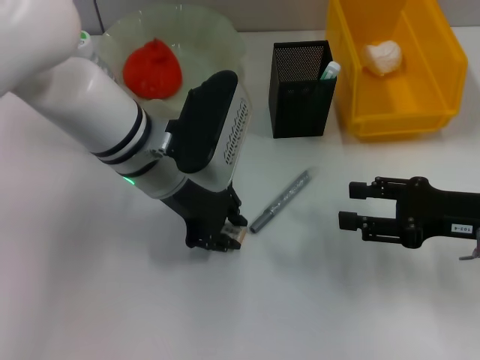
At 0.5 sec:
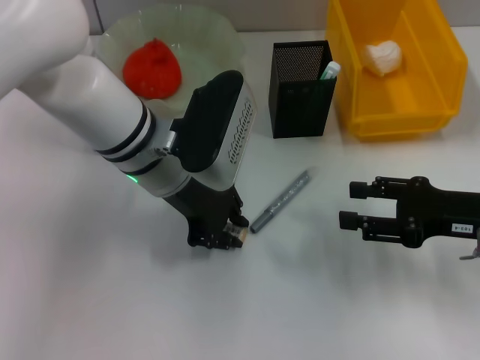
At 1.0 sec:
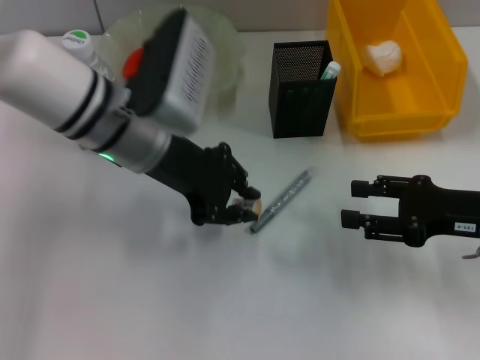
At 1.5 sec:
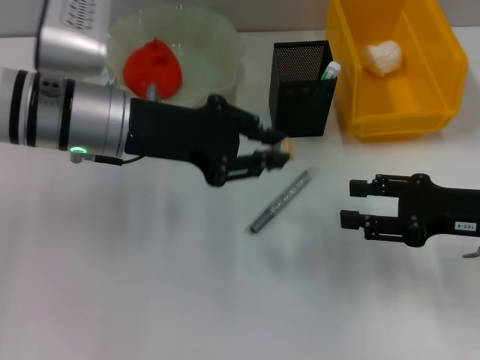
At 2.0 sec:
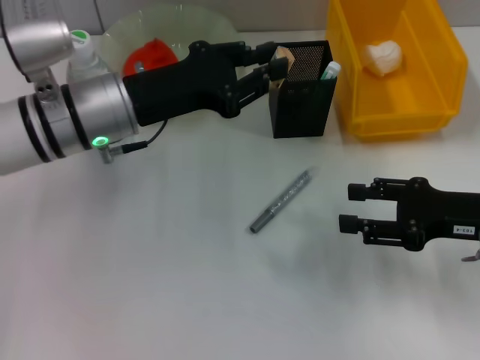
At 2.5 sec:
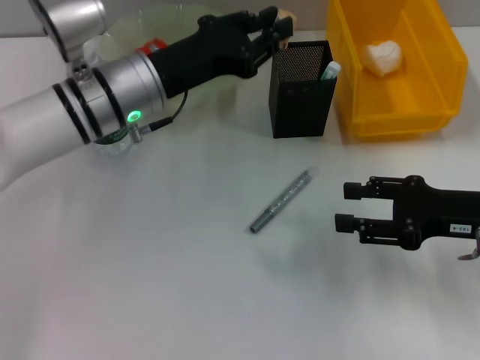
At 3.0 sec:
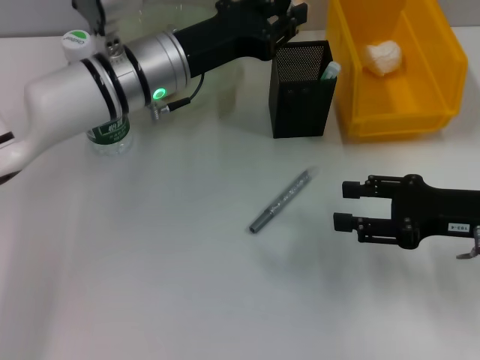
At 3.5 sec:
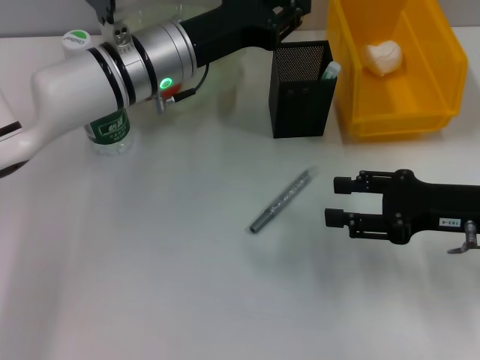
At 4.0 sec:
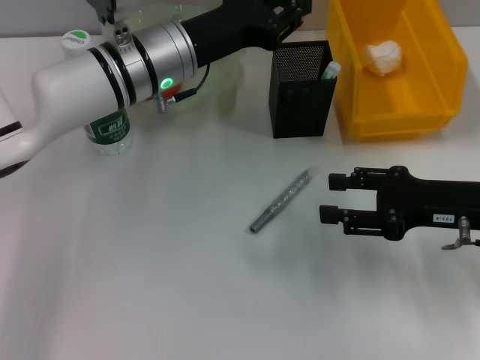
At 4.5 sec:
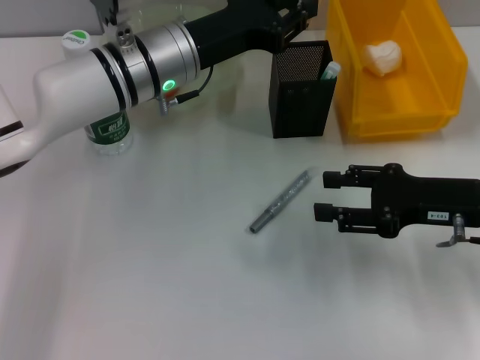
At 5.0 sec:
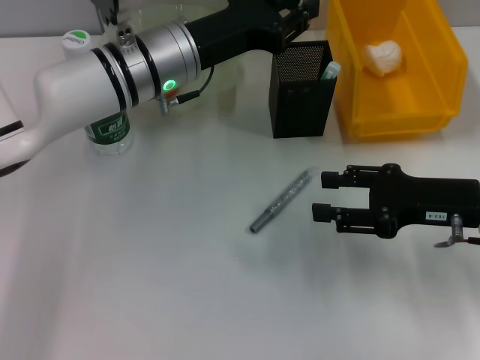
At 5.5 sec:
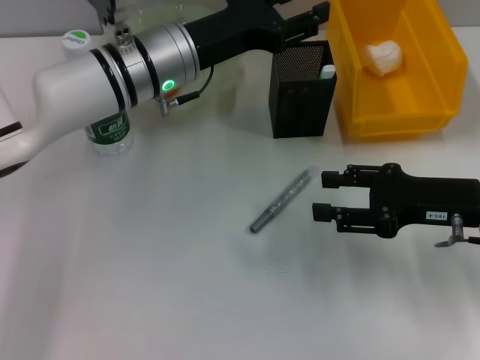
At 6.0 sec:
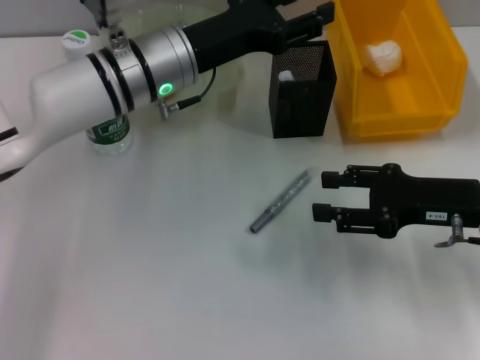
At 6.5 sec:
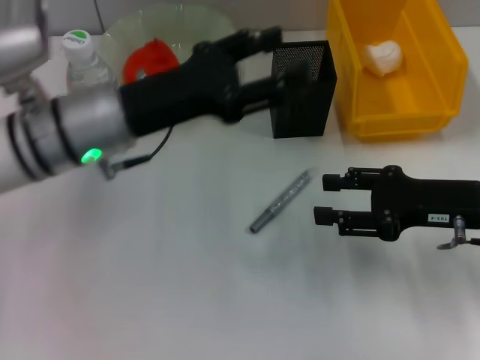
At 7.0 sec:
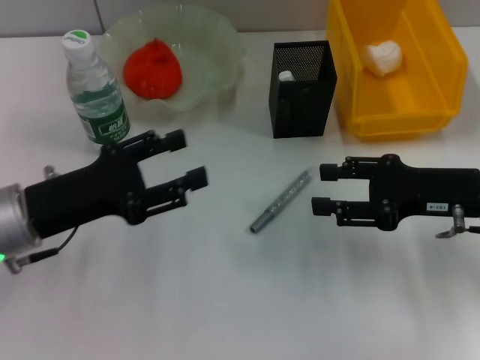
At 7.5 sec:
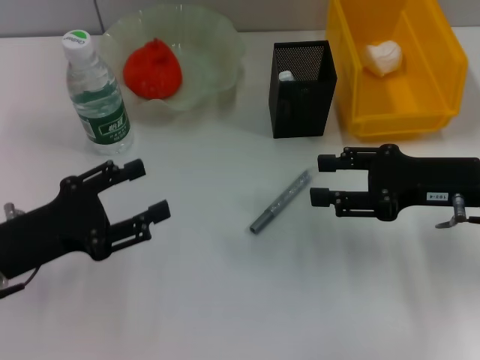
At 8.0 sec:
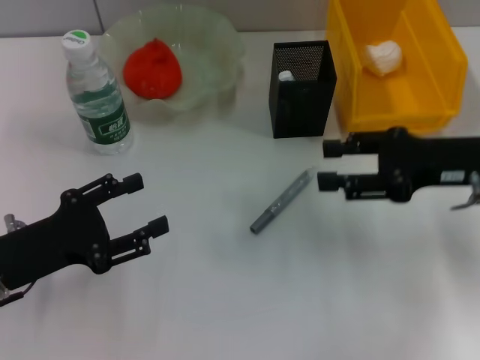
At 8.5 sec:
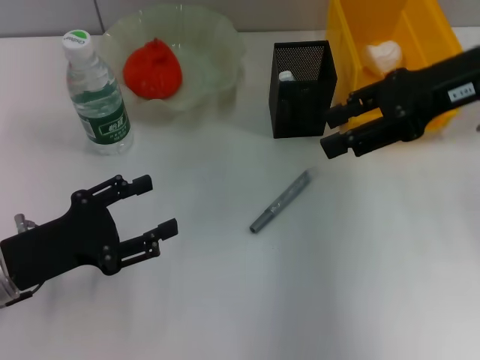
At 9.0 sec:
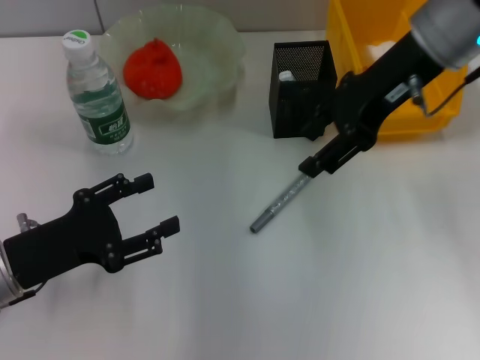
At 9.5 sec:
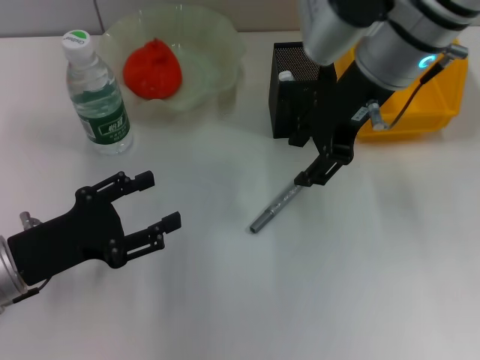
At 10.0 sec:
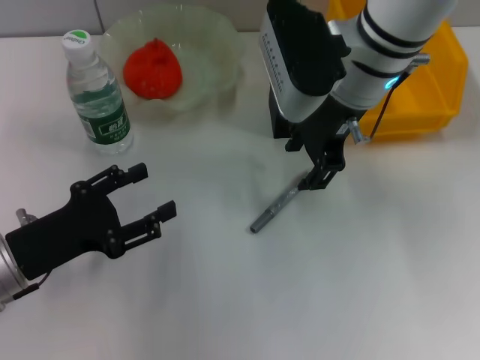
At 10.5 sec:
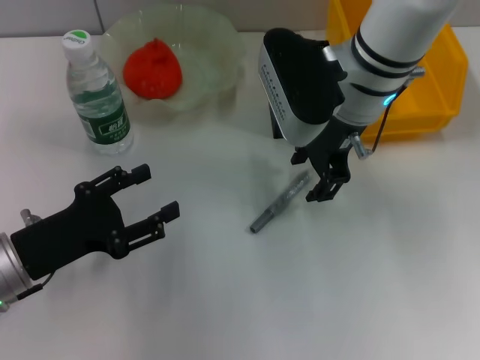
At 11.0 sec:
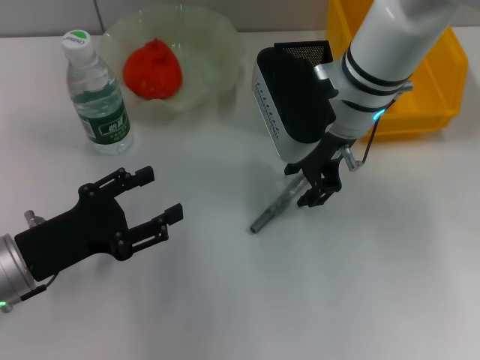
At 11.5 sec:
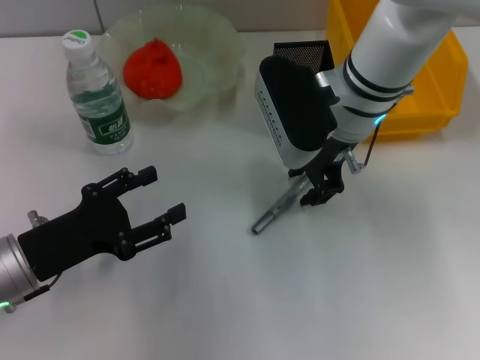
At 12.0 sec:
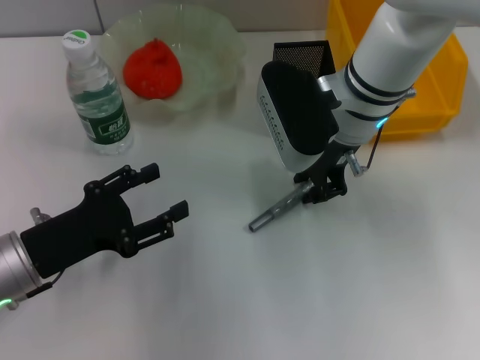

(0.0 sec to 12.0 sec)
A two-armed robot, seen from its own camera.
Step, 0.5 sec - 5.0 sec: Place the eraser into the pen holder with the left hand.
0.0 sec - 2.0 sec: The left gripper heads to the left, covering roughly 5 cm.
2.0 sec - 4.0 sec: The left gripper shifts roughly 5 cm forward and to the right.
4.0 sec - 6.0 sec: The left gripper opens.
6.0 sec - 8.0 sec: The right gripper ends up some 5 cm from where it was, while the left gripper is displaced backward, to the left and downward by approximately 25 cm.
8.0 sec - 10.0 sec: The right gripper shifts some 20 cm to the left and forward.
10.0 sec - 12.0 sec: The right gripper closes up.

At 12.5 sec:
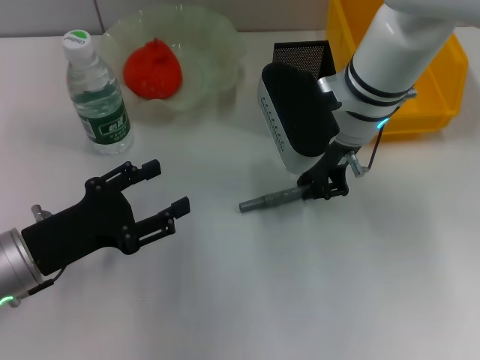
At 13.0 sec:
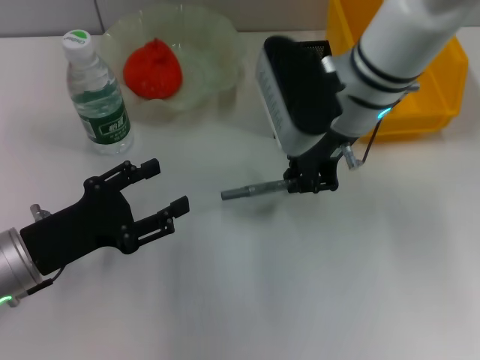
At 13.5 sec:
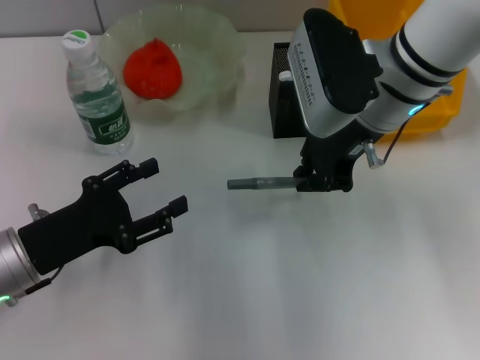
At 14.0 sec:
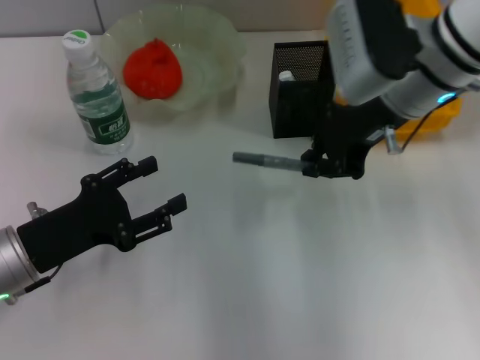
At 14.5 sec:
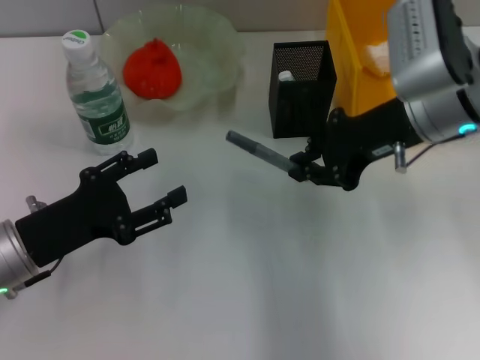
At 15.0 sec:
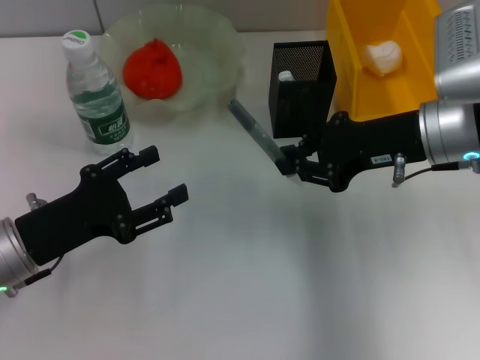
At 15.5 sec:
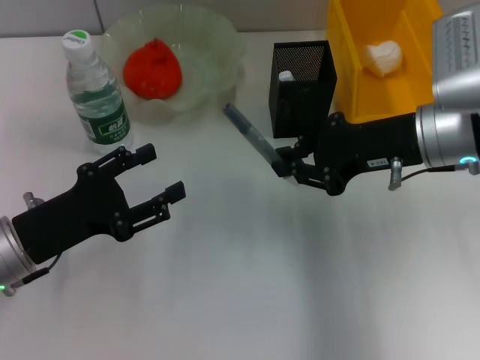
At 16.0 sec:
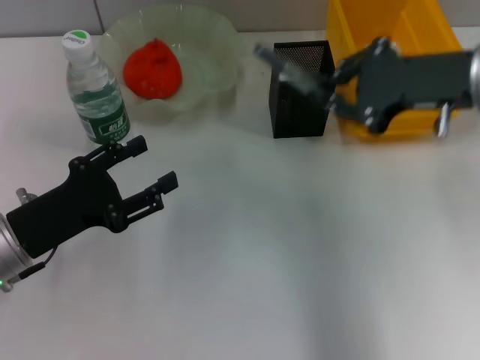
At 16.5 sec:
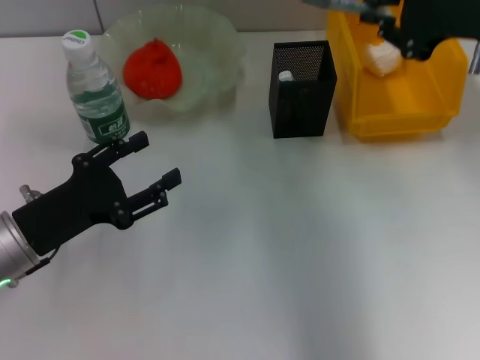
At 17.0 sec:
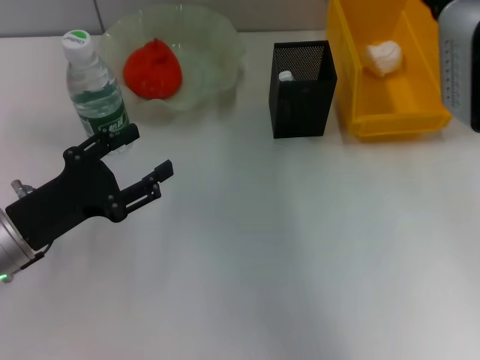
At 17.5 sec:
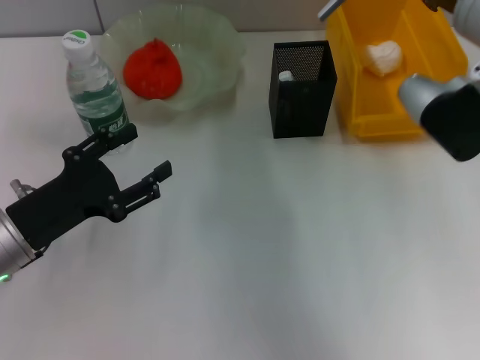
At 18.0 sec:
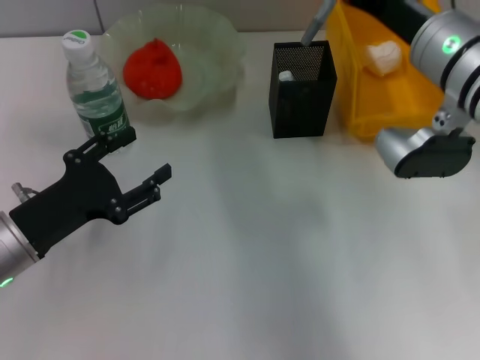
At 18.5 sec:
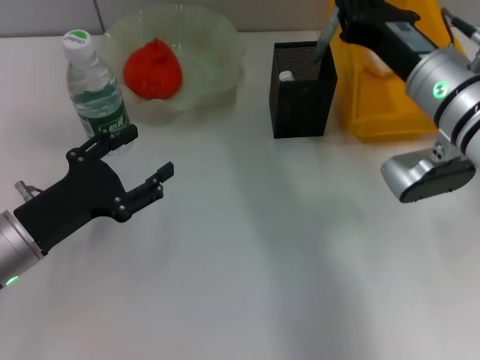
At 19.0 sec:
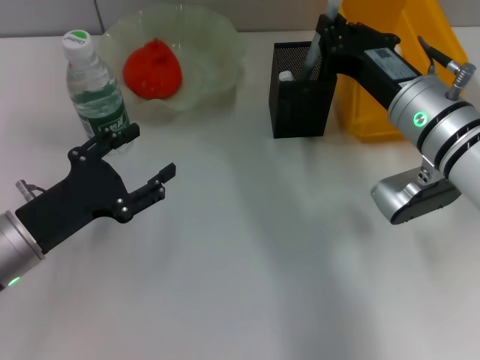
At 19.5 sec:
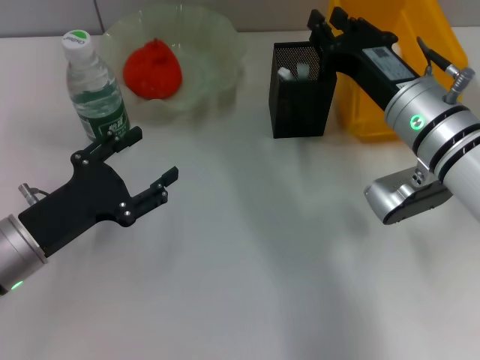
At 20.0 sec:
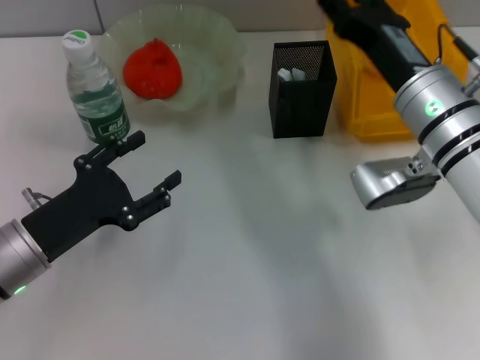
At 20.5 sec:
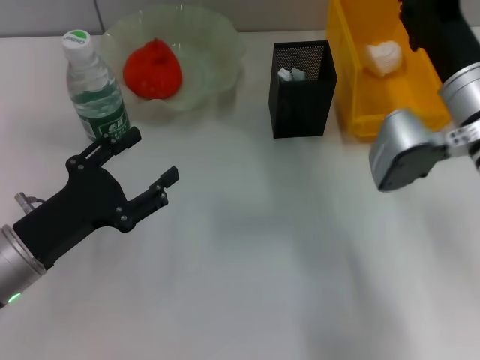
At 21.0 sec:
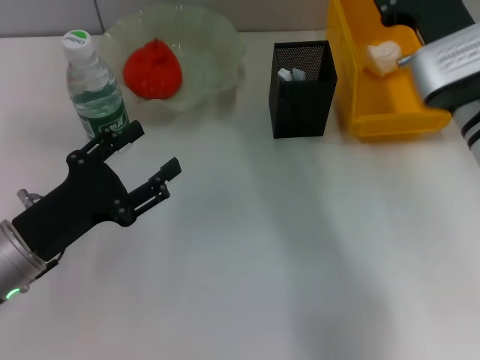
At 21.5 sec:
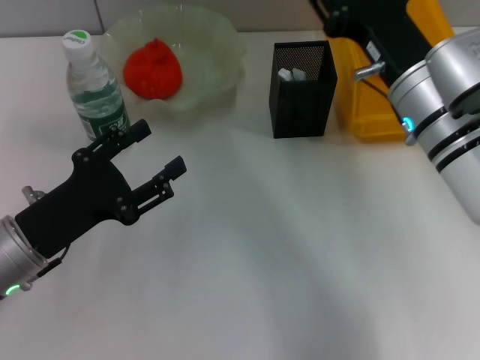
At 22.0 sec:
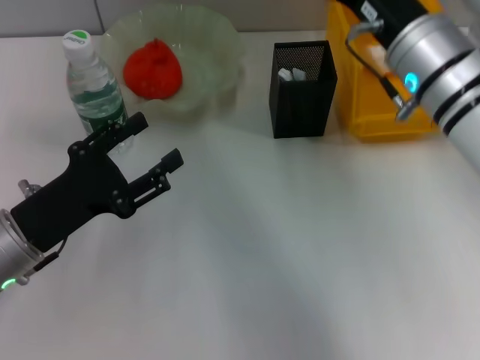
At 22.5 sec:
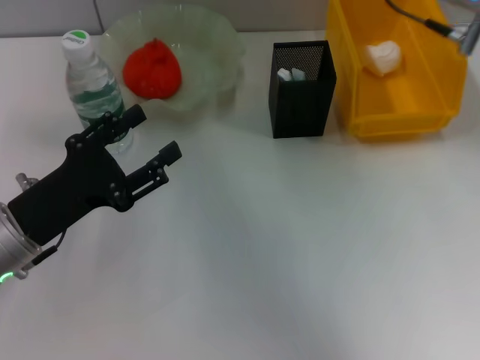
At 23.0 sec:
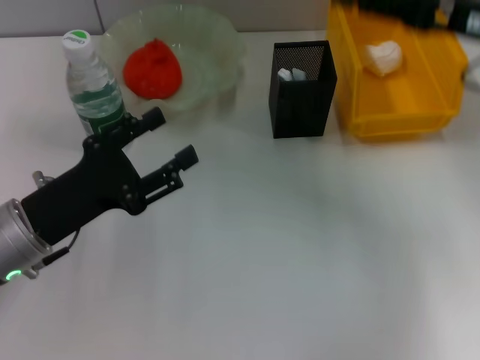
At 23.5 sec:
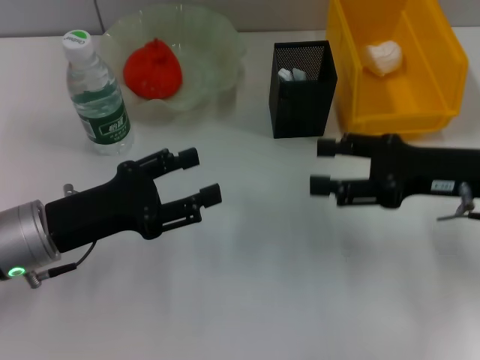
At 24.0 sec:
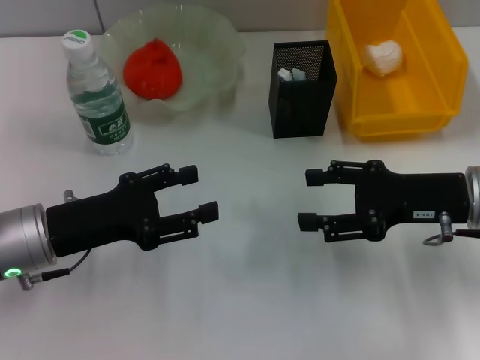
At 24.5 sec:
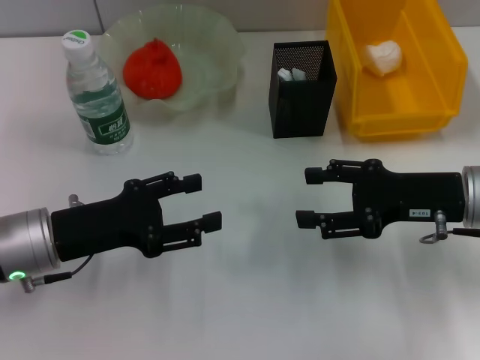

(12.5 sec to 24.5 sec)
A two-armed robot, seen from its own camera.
Step, 13.0 sec - 19.5 sec: Place the gray glue into the pen holder with the right hand.
12.5 sec - 14.5 sec: The right gripper goes about 10 cm to the right.
14.5 sec - 16.5 sec: The right gripper moves upward and to the right, about 10 cm.
16.5 sec - 18.5 sec: The right gripper shifts about 10 cm downward and to the left.
18.5 sec - 20.5 sec: The right gripper opens up.
20.5 sec - 22.5 sec: The right gripper moves upward, approximately 15 cm.
22.5 sec - 24.5 sec: The right gripper is displaced downward by roughly 15 cm.

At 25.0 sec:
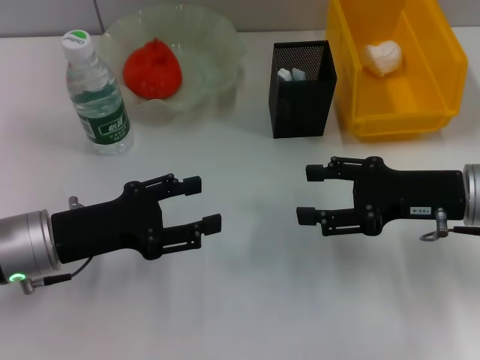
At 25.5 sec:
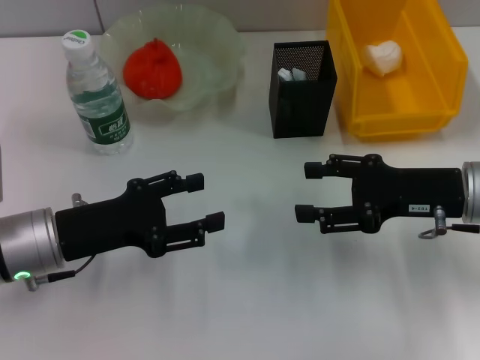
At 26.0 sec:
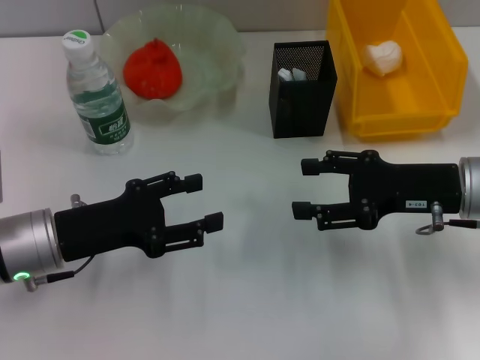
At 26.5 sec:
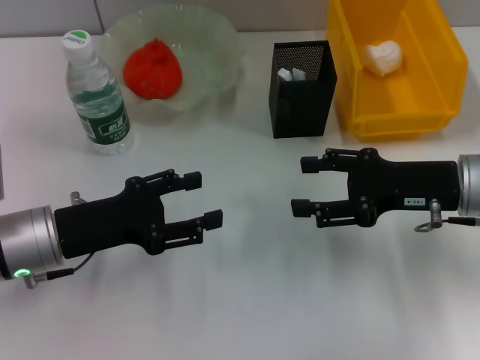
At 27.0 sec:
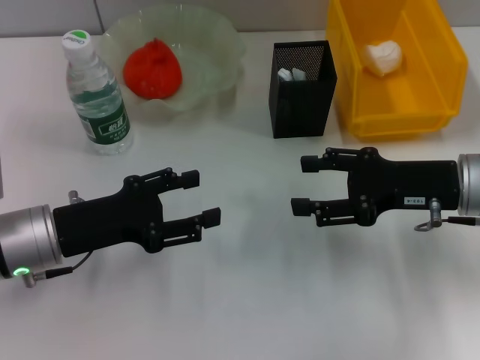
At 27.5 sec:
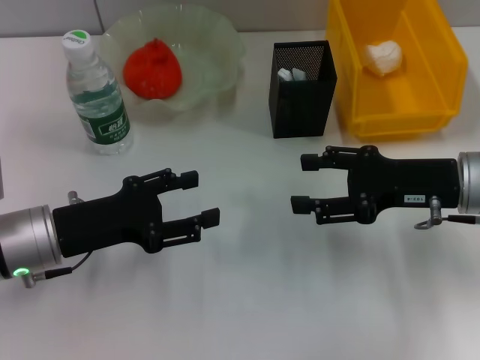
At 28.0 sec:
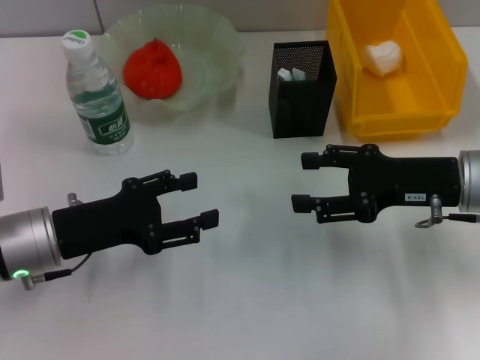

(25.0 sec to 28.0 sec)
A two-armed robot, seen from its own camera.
25.0 sec - 28.0 sec: Neither gripper changes place.
